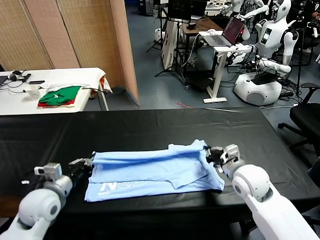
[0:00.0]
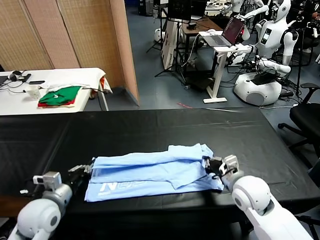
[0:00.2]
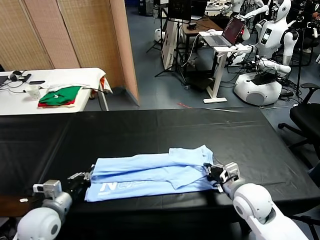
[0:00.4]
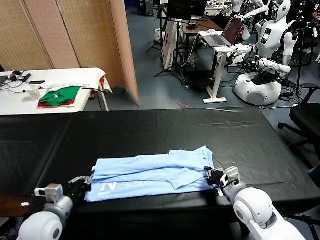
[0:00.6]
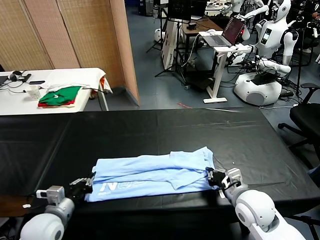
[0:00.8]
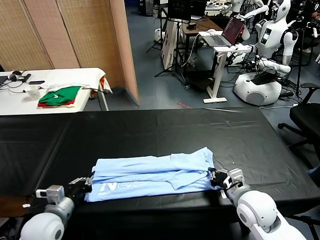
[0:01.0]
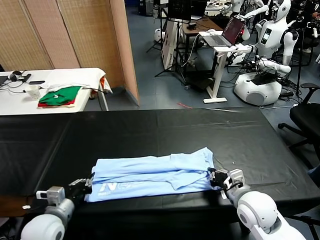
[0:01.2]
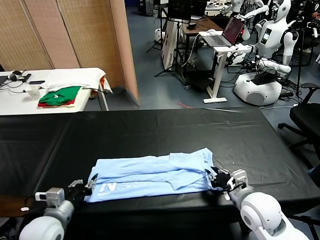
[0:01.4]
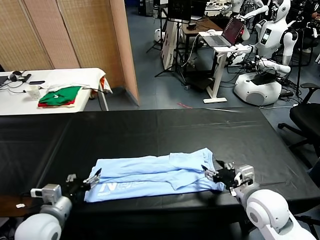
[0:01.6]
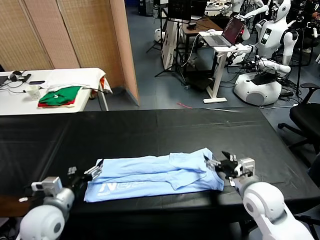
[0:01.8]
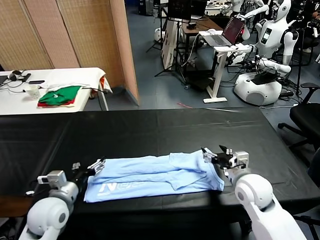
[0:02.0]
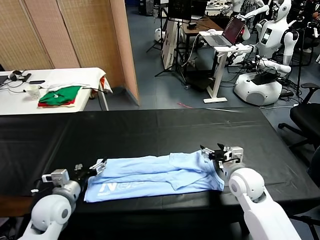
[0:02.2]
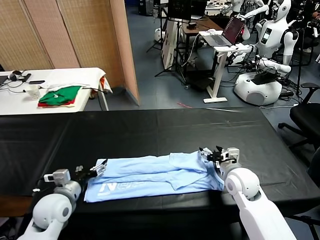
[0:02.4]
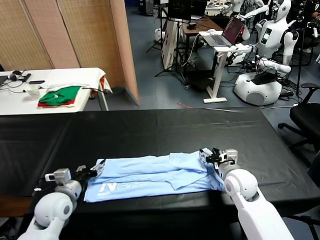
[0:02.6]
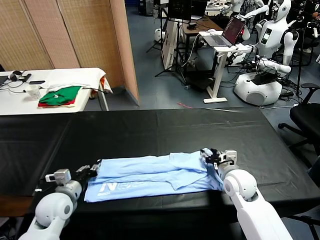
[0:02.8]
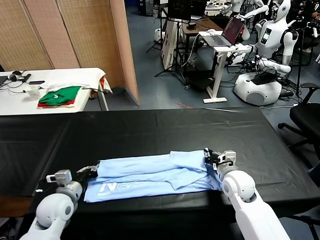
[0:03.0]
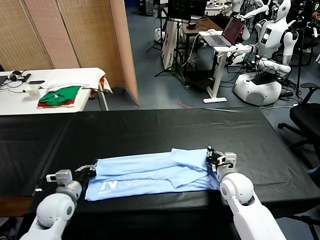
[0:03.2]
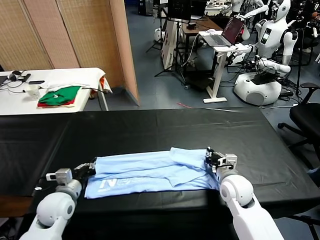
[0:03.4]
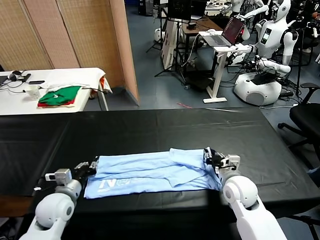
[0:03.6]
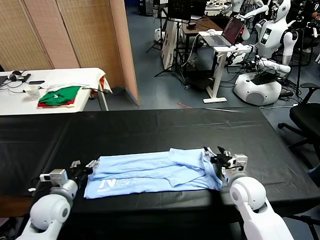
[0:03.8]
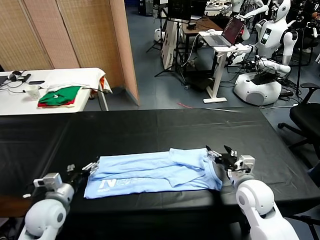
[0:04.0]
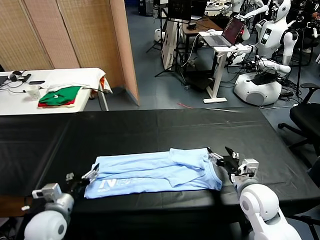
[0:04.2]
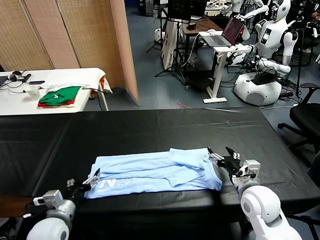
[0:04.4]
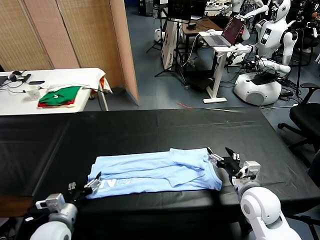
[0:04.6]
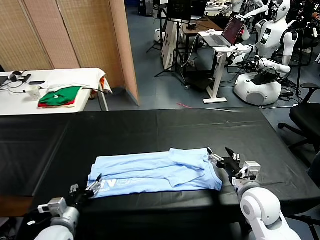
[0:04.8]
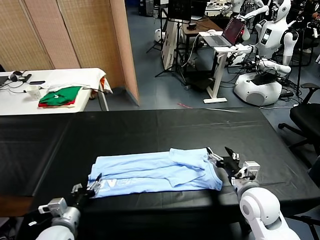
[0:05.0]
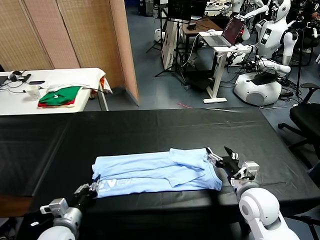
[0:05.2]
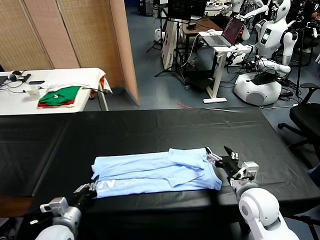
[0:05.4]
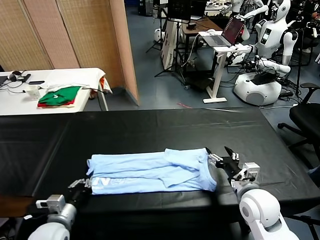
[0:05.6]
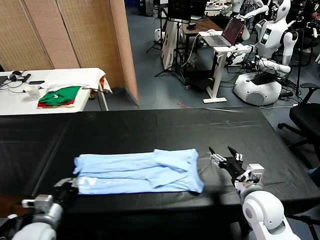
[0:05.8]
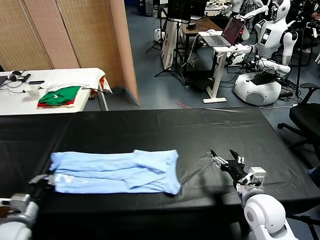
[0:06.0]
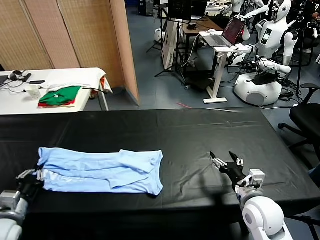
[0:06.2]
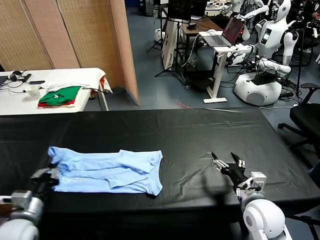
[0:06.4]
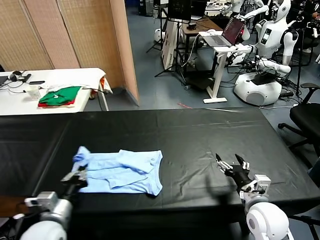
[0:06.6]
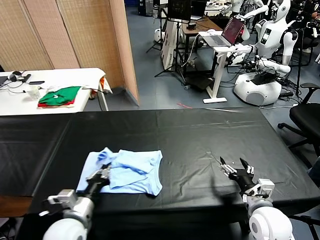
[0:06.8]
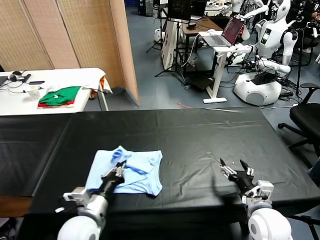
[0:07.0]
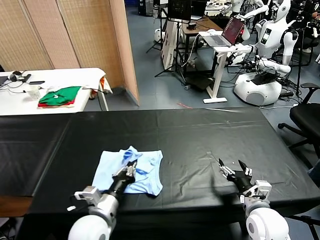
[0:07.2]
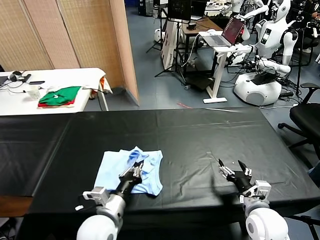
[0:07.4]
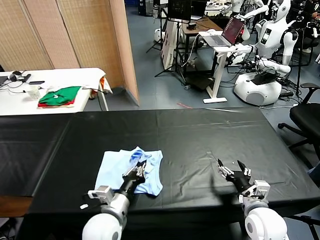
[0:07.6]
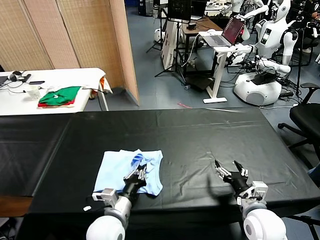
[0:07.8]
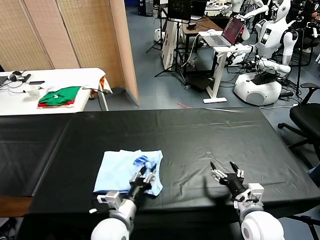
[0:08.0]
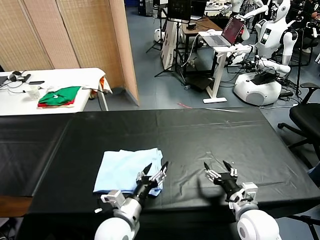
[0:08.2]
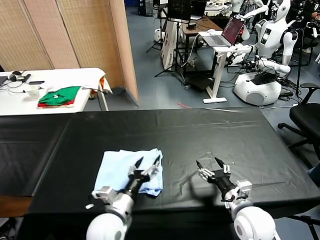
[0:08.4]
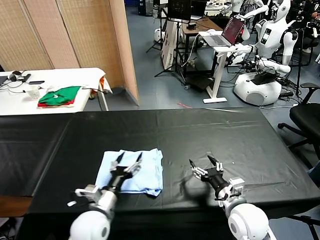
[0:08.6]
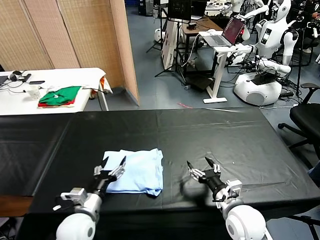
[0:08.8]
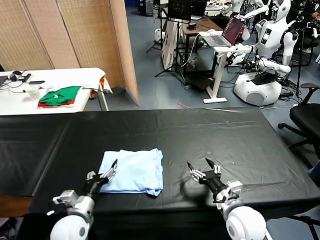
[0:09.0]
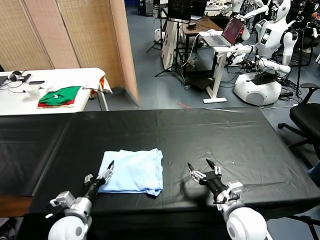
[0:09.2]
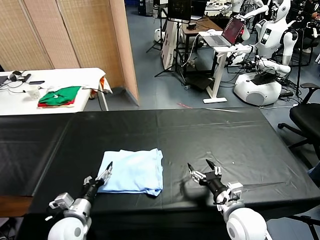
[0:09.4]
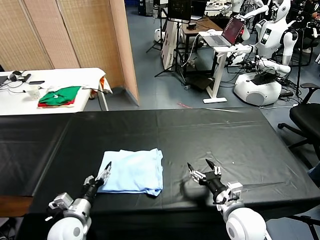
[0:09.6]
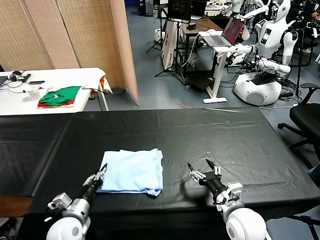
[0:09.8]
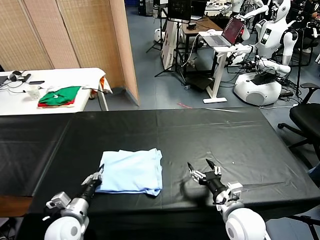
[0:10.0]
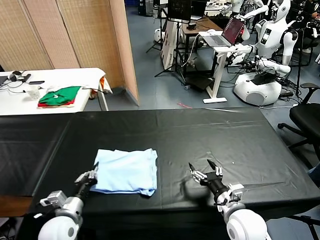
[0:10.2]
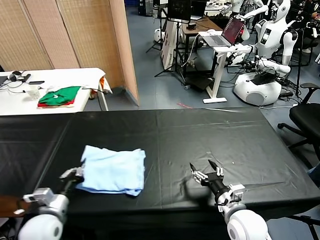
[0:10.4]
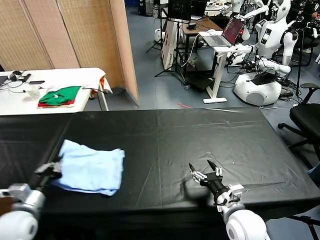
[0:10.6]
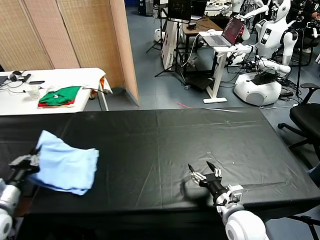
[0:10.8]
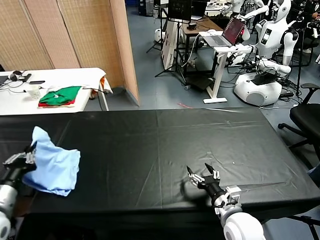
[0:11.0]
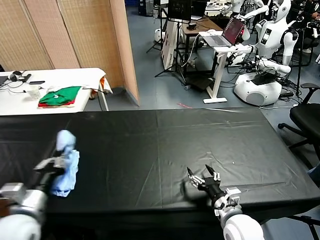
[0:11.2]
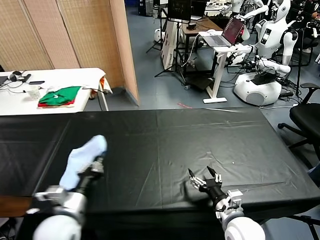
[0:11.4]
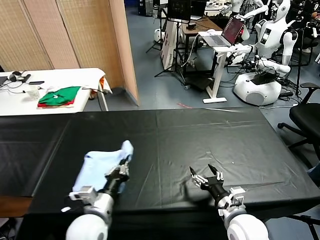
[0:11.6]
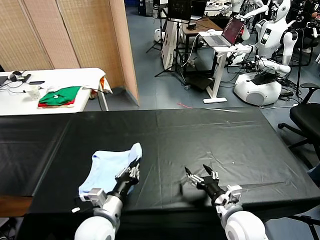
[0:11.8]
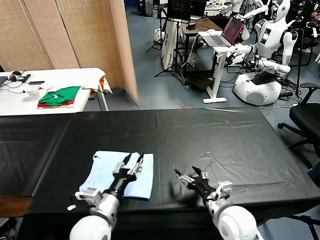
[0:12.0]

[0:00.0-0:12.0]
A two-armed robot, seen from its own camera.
Task of the whole recording: fold and organize the clothes.
Step, 0:00.0 to 0:01.6: use both grippers to drag the upper edge of the fabric backward and fold it over the lower edge.
Step, 0:01.8 to 0:05.2: use the left gripper to clamp the left edge of the fabric.
Step, 0:05.4 to 0:08.0: use the left gripper to drag the left edge of the fabric to the left and folds it over the right edge.
Step, 0:08.2 to 0:11.8: Flip the folded clothes over with left gripper.
0:00.0 to 0:01.6: The right gripper ends up approximately 5 cm from where it was, and opens its fingers. The left gripper shifts roughly 5 cm backward, and opens its fingers.
0:01.6 to 0:03.0: Both grippers move forward and downward, approximately 10 cm. The left gripper closes. The right gripper closes.
0:03.0 to 0:04.4: The two grippers go approximately 5 cm backward. The left gripper opens up. The right gripper opens up.
0:04.4 to 0:06.0: The left gripper shifts about 10 cm to the left, and closes its fingers.
0:06.0 to 0:07.6: The left gripper shifts roughly 25 cm to the right.
0:07.6 to 0:09.0: The left gripper shifts some 10 cm to the left, and opens up. Meanwhile the right gripper travels to the left by roughly 5 cm.
0:09.0 to 0:10.4: The left gripper moves to the left, about 5 cm, and closes up.
0:10.4 to 0:12.0: The left gripper moves to the right, approximately 15 cm, and opens its fingers.

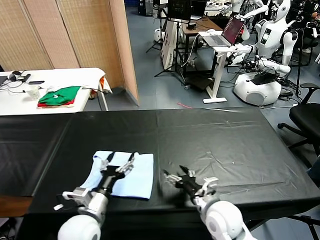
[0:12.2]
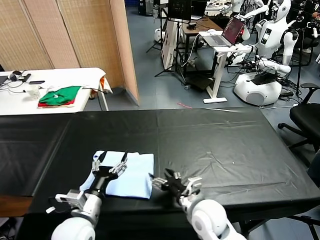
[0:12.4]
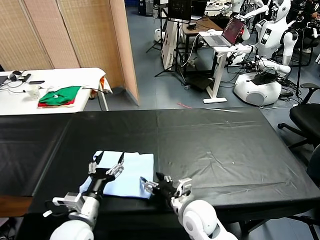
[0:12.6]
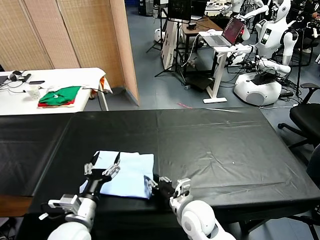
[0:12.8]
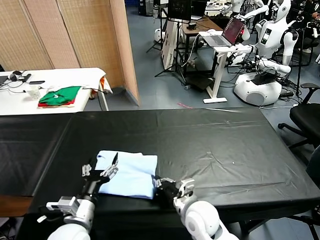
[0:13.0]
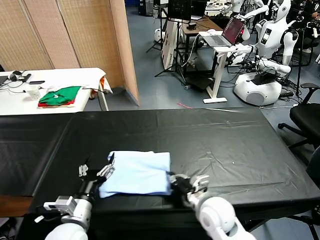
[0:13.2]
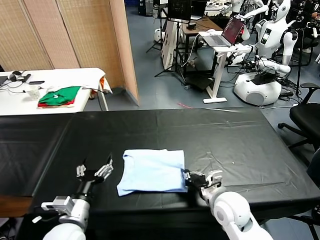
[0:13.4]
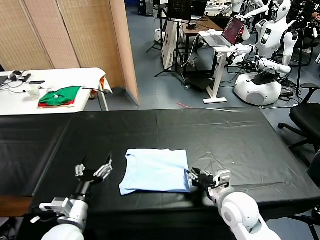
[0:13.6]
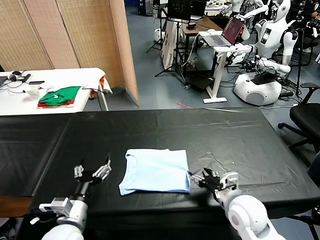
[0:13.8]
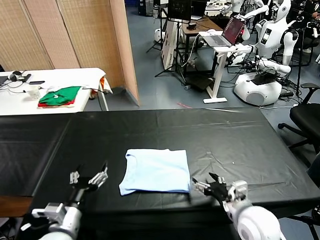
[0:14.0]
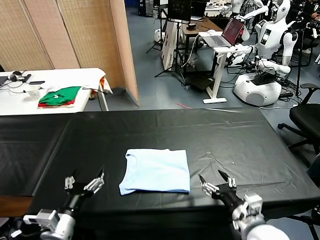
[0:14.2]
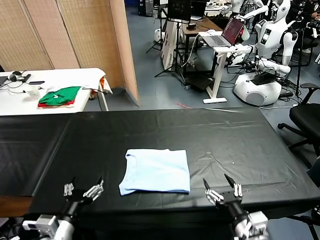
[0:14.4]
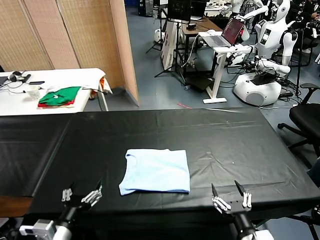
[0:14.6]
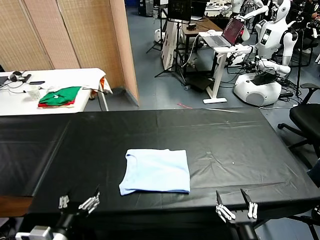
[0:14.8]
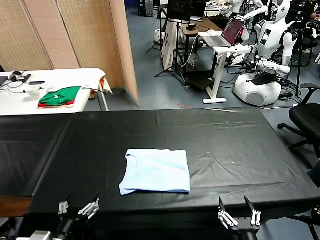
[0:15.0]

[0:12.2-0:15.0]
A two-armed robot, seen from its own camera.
Task of the whole recording: fold and organize the clothes.
Step, 0:12.2 to 0:13.6: Drag the clothes to the center of the table.
0:12.2 to 0:13.6: The left gripper ends up some 5 cm from where it was, while the right gripper travels to the left and back again, some 5 cm each way, and closes its fingers.
0:13.6 to 0:15.0: The right gripper is displaced backward by about 20 cm, and opens; the left gripper heads backward, covering some 10 cm.

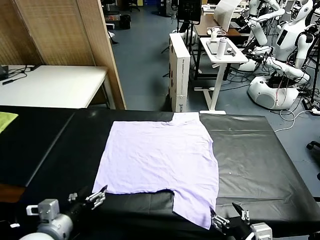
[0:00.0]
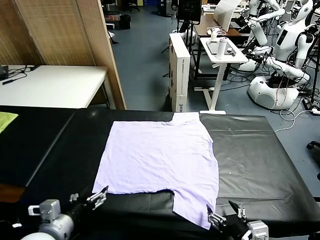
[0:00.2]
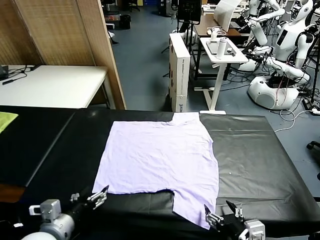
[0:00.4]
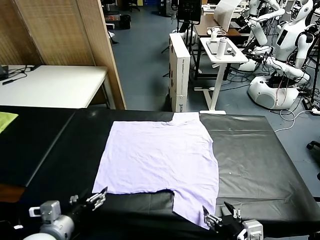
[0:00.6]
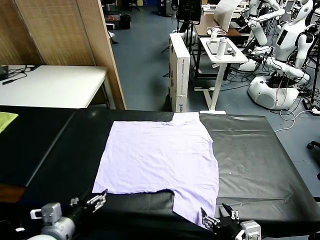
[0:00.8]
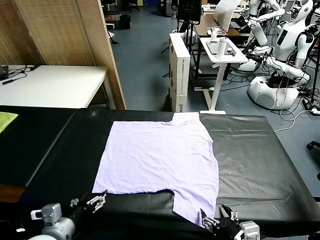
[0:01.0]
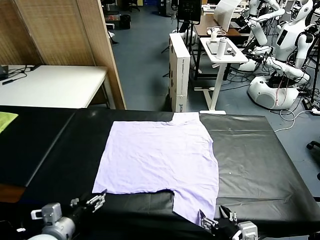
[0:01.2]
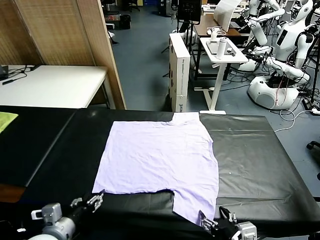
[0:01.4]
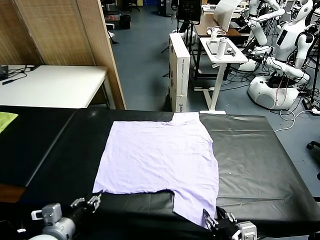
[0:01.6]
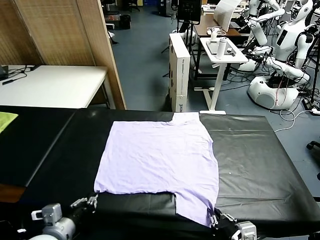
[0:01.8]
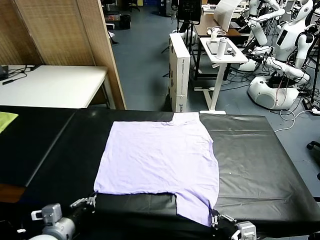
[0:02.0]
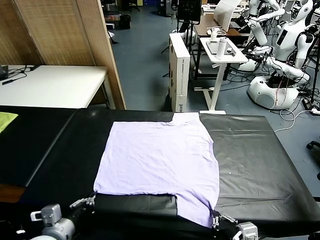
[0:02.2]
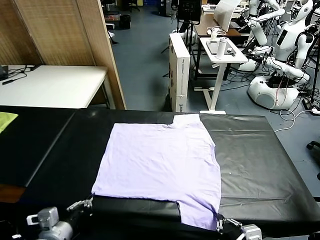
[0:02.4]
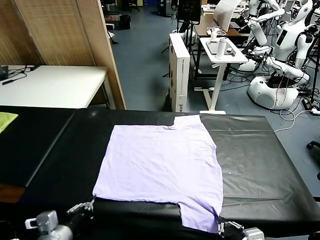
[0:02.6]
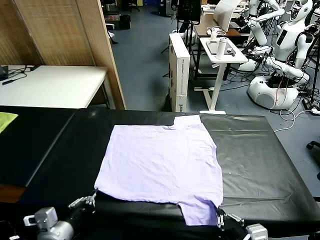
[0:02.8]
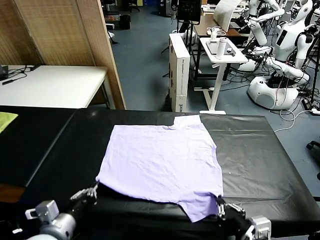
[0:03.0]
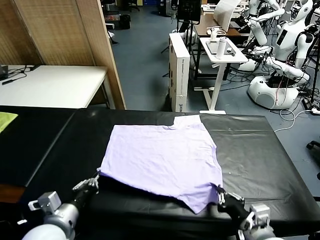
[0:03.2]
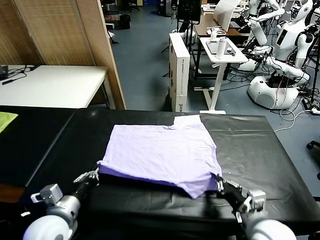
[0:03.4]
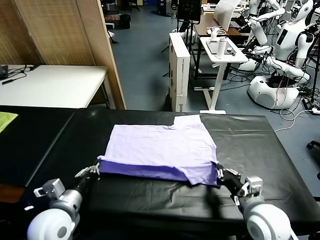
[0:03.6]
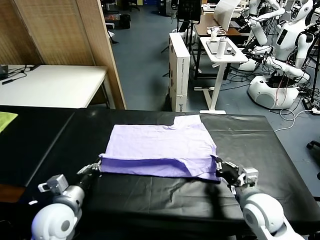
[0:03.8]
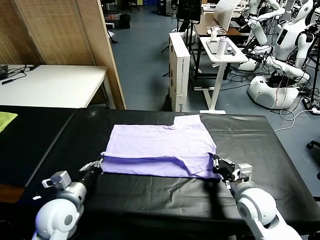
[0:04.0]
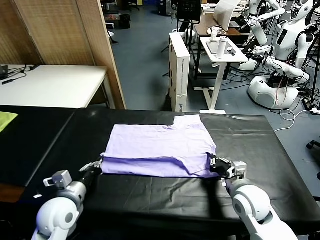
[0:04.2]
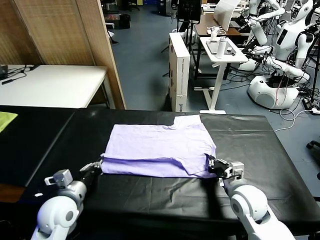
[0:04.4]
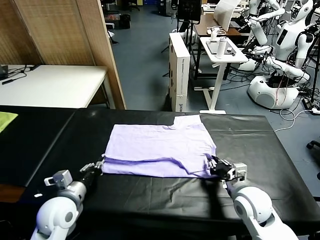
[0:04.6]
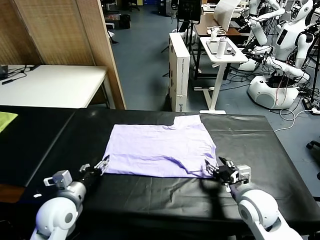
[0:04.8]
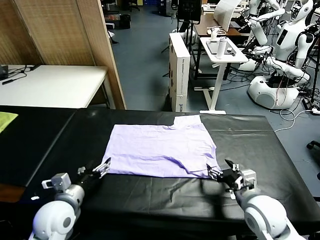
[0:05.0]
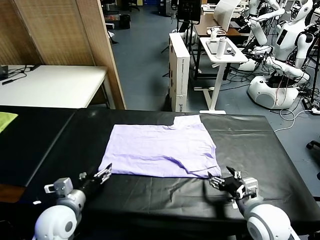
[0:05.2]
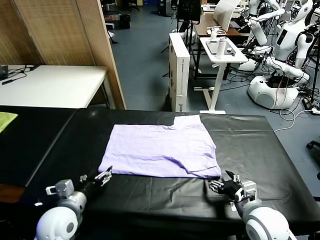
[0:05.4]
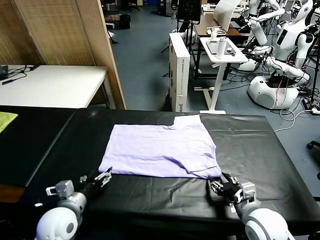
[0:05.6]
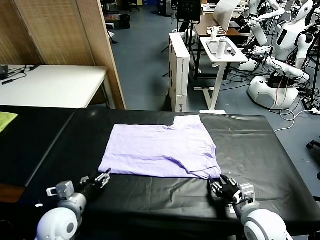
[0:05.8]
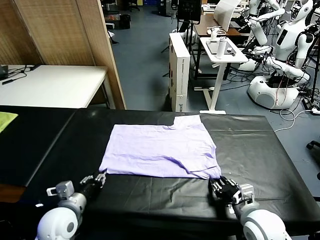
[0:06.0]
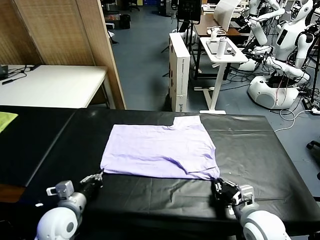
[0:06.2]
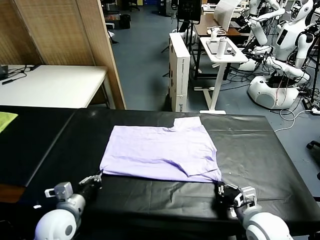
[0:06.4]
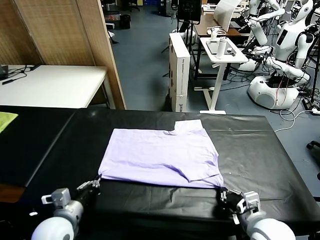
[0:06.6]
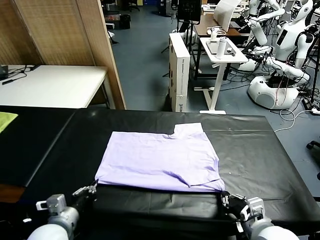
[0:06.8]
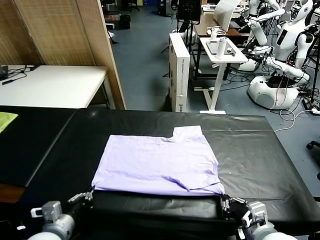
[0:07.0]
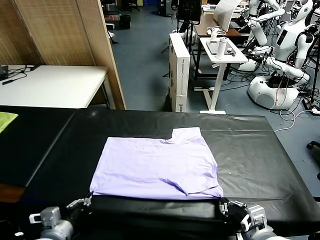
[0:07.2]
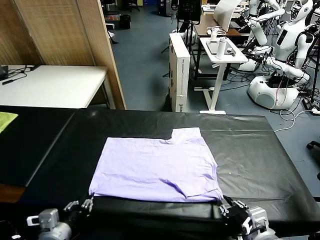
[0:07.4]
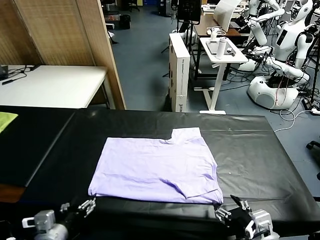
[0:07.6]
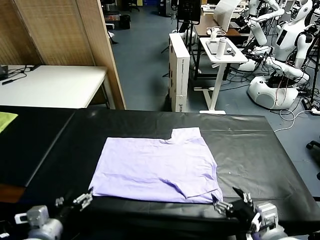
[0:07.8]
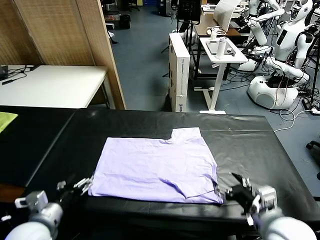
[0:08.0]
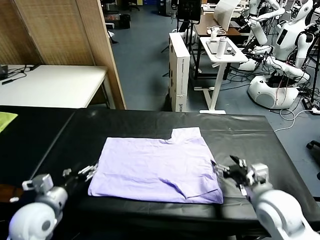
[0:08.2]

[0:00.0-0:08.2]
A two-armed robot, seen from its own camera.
Task of the whole recording: fold and organize the clothes.
Step, 0:00.0 to 0:02.2: use both grippers simultaneously to clamp the lower edge of the clothing fabric.
Step, 0:02.6 to 0:04.8: use both grippers to drag the lower edge of the fabric forward and fold it over the upper edge.
Step, 0:05.0 to 0:07.6: Drag the clothes downward with both gripper.
0:01.6 to 0:03.2: The right gripper is displaced forward by some 10 cm.
0:03.2 to 0:05.0: The left gripper ends up some 5 cm from where it was, and opens up; the right gripper opens its fingers.
0:05.0 to 0:06.6: The right gripper is displaced backward by approximately 5 cm, and closes, while the left gripper closes its fingers.
0:06.6 to 0:08.2: The right gripper travels forward by approximately 15 cm, and opens, while the left gripper goes approximately 5 cm forward, and opens.
